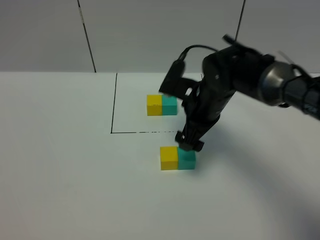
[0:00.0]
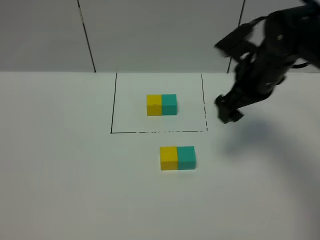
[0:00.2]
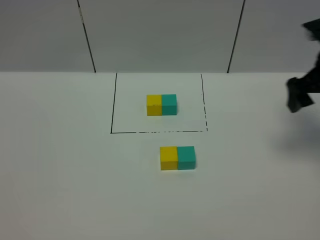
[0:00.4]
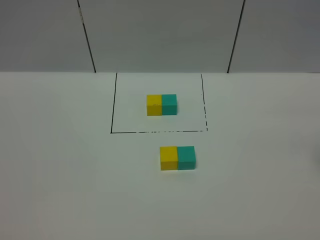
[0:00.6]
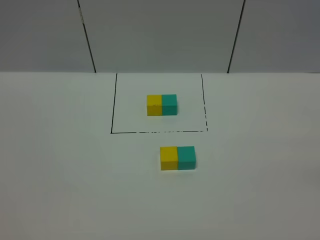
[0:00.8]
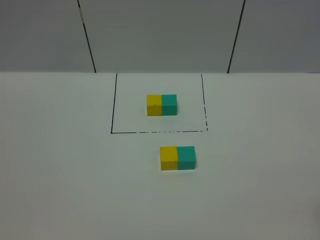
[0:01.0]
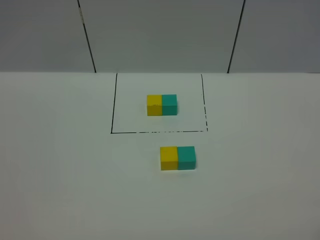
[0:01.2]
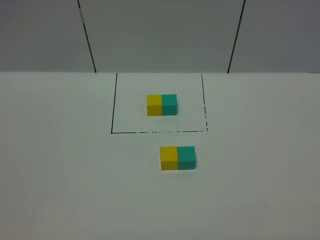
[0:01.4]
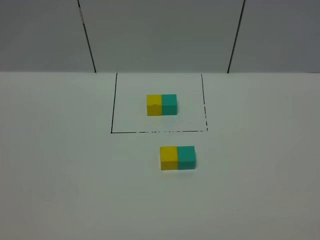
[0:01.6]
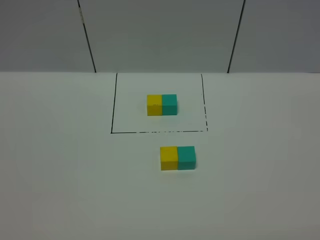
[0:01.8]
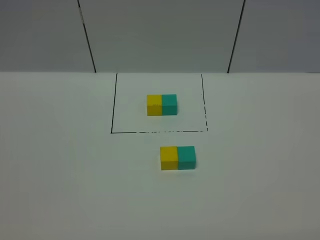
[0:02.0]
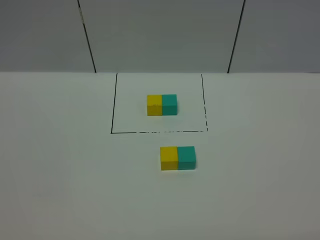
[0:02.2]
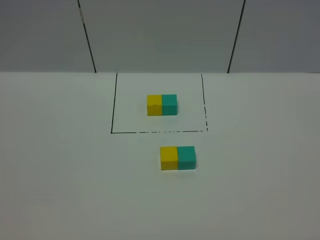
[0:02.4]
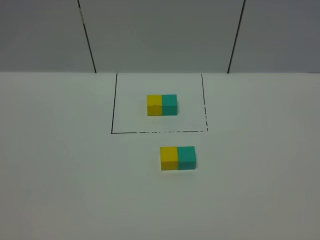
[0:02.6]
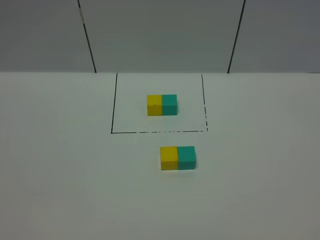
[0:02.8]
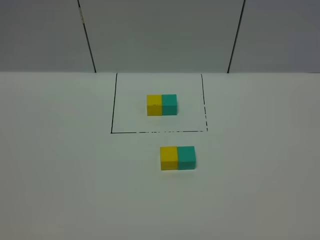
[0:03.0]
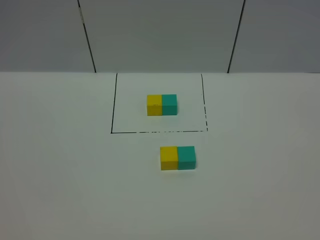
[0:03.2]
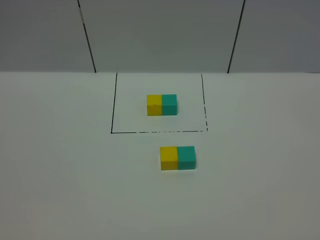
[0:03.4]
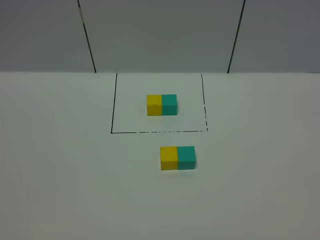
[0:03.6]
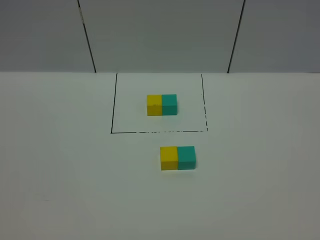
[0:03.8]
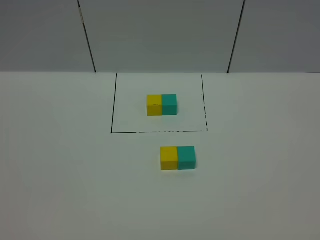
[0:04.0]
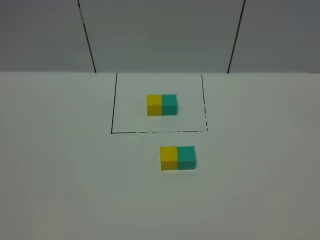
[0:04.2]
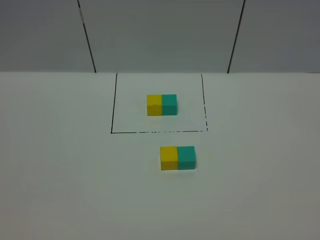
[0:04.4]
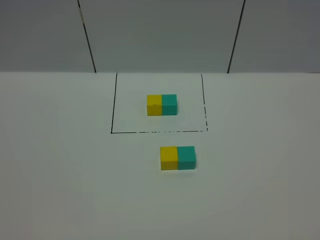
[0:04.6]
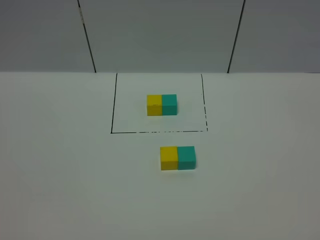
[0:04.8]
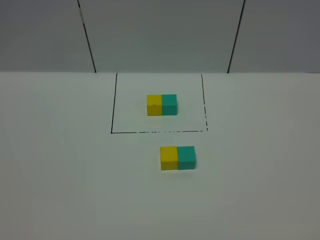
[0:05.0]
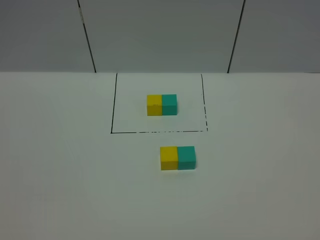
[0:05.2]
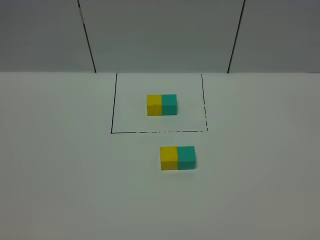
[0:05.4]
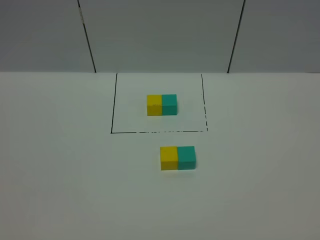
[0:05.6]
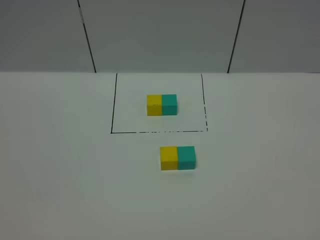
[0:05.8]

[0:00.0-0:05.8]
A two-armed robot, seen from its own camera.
Task of the whole recording: According to the building block template in front, assemble the scattered blocks together.
0:00.0 to 0:01.4: The right gripper goes some 40 cm backward and to the right.
0:02.8 to 0:05.8: The two grippers keep their place.
